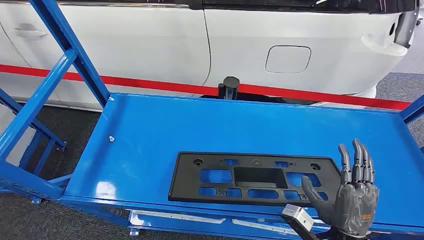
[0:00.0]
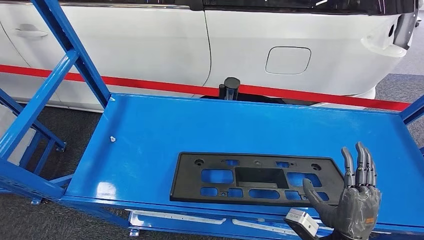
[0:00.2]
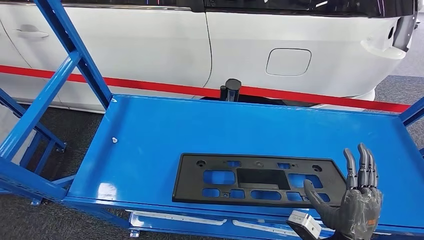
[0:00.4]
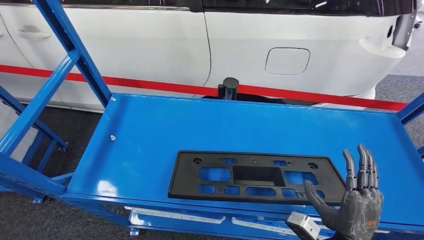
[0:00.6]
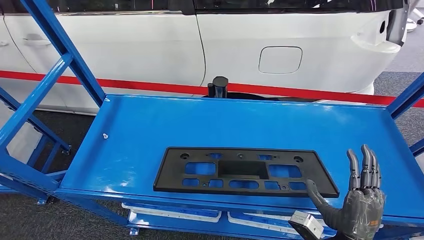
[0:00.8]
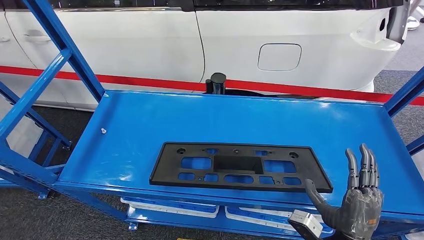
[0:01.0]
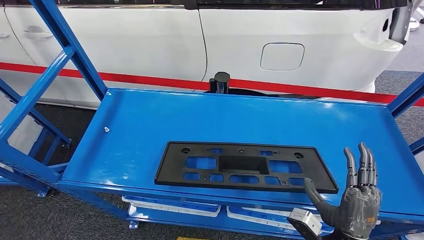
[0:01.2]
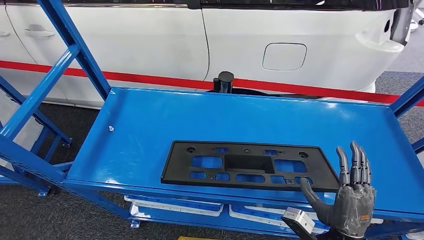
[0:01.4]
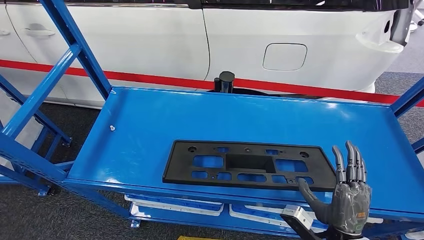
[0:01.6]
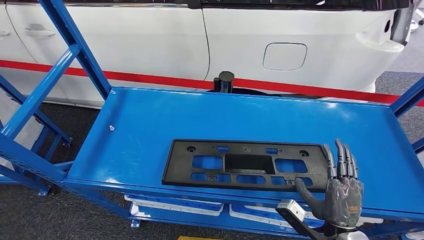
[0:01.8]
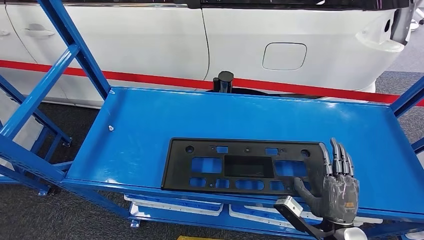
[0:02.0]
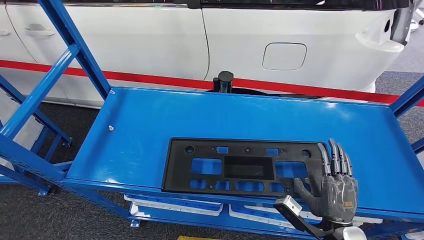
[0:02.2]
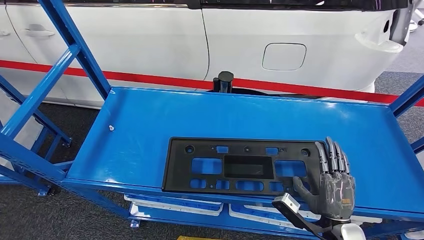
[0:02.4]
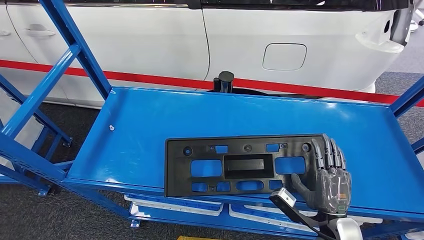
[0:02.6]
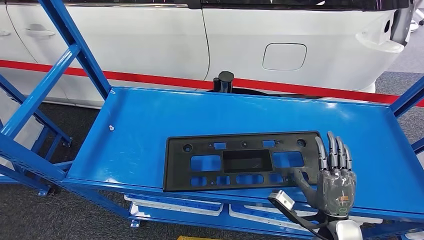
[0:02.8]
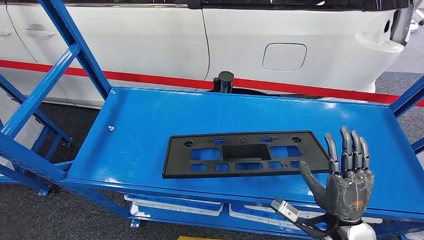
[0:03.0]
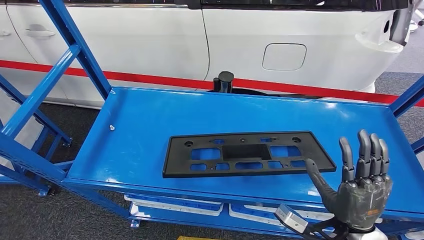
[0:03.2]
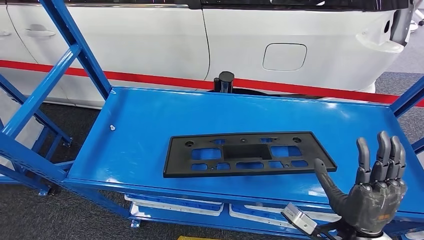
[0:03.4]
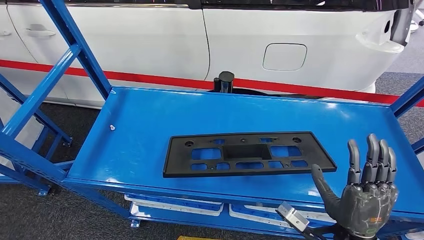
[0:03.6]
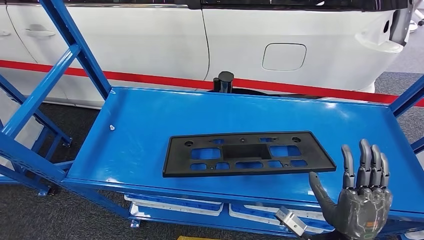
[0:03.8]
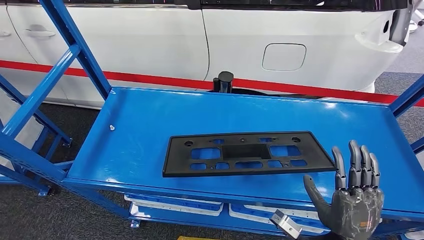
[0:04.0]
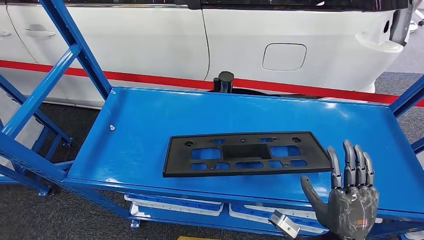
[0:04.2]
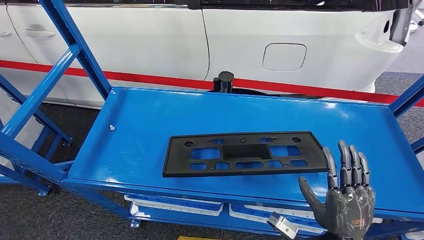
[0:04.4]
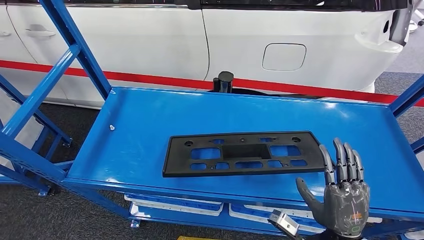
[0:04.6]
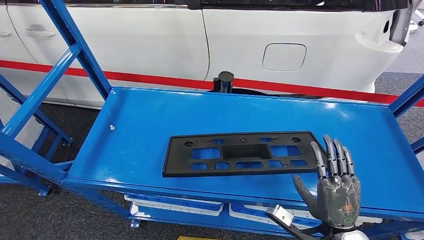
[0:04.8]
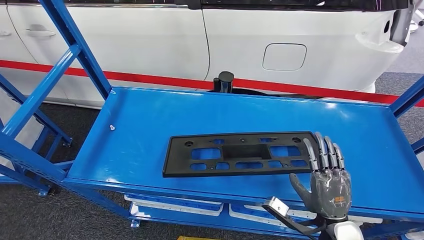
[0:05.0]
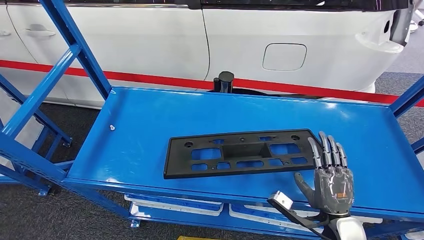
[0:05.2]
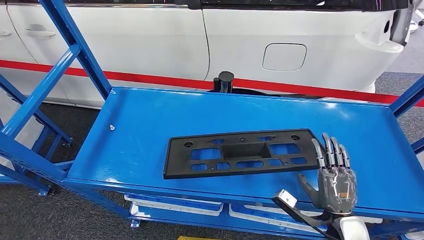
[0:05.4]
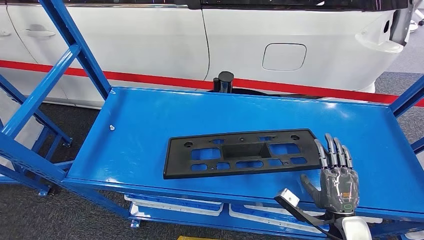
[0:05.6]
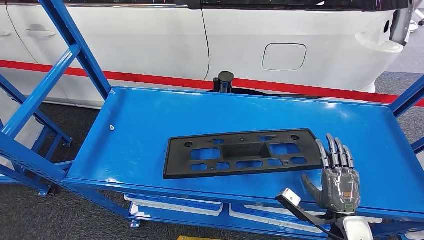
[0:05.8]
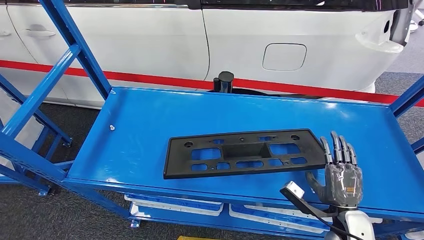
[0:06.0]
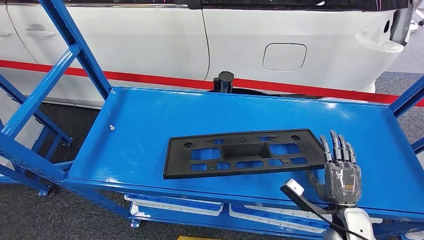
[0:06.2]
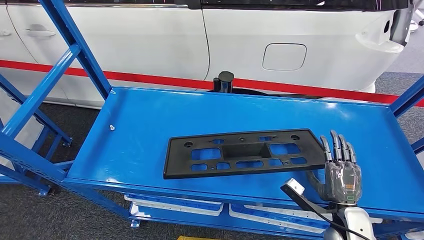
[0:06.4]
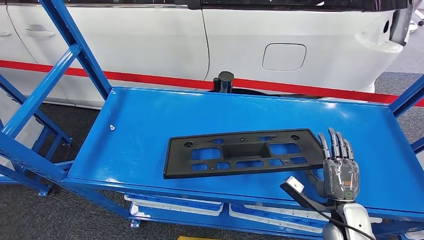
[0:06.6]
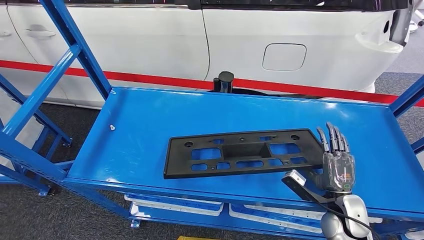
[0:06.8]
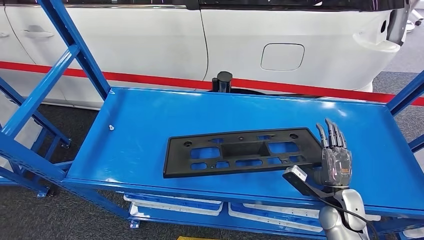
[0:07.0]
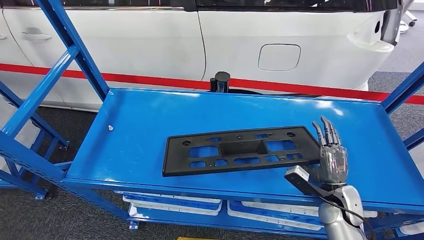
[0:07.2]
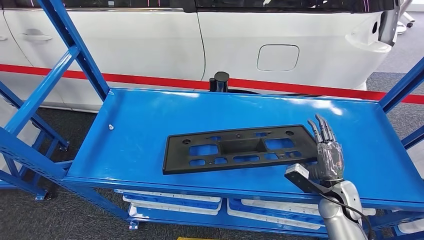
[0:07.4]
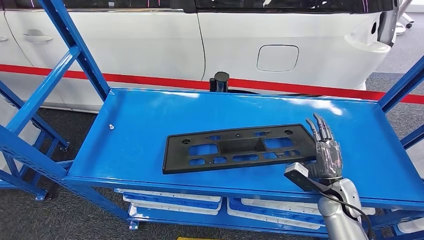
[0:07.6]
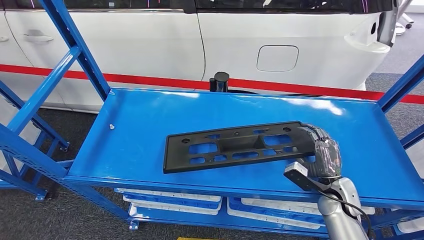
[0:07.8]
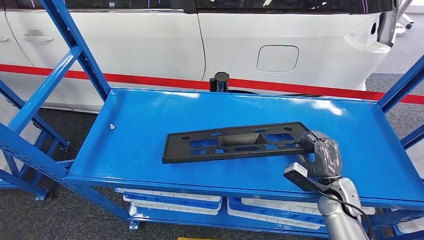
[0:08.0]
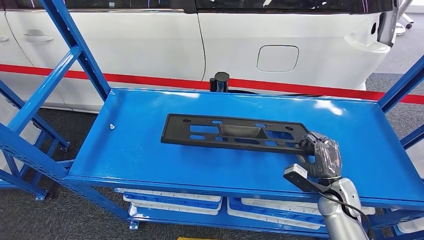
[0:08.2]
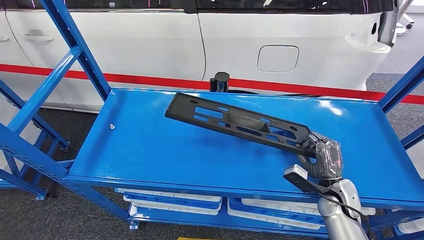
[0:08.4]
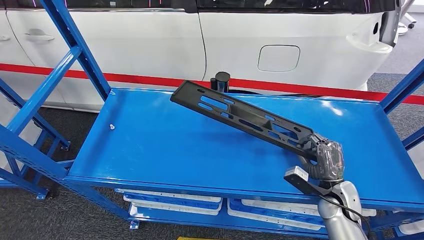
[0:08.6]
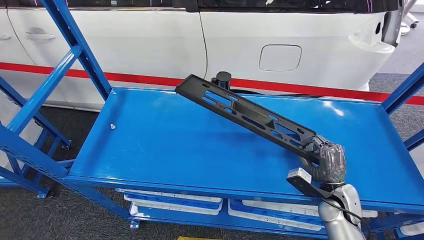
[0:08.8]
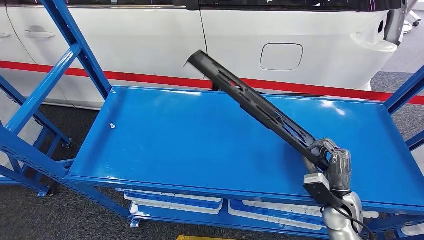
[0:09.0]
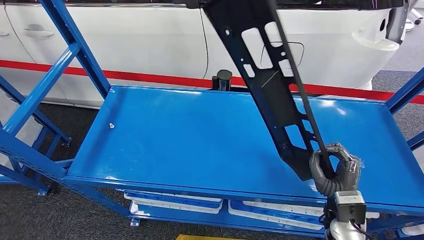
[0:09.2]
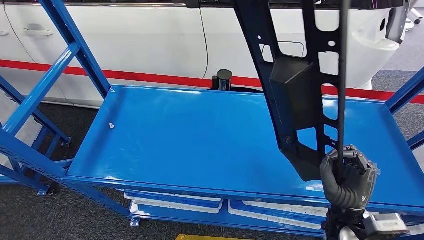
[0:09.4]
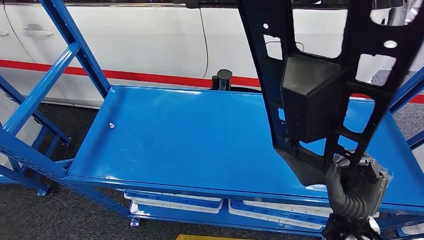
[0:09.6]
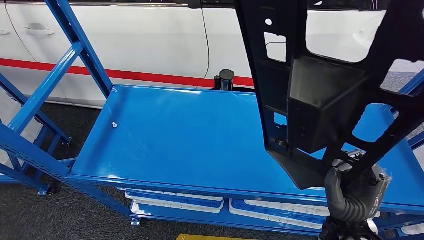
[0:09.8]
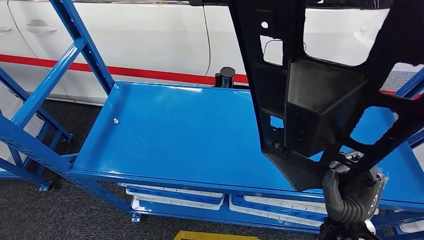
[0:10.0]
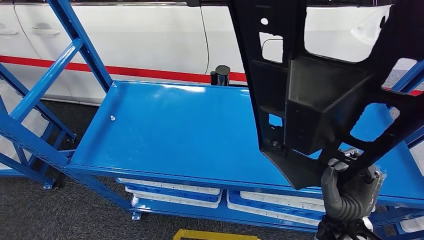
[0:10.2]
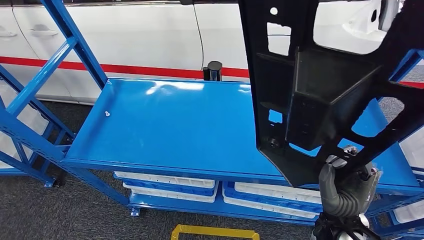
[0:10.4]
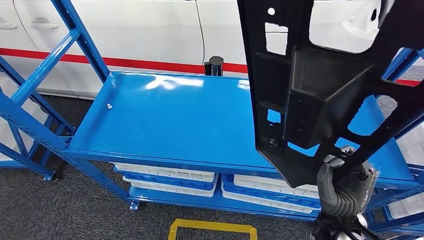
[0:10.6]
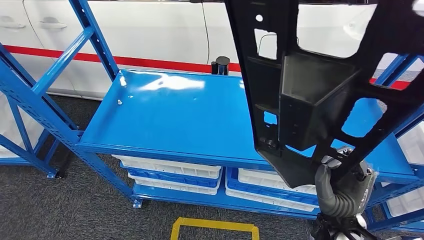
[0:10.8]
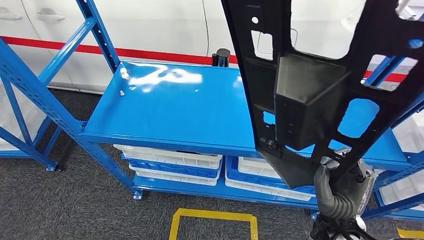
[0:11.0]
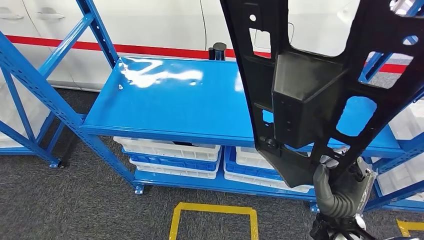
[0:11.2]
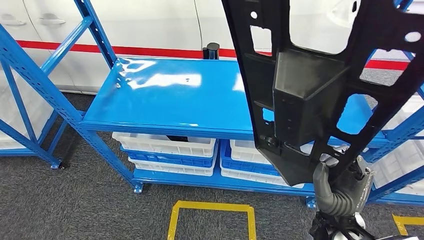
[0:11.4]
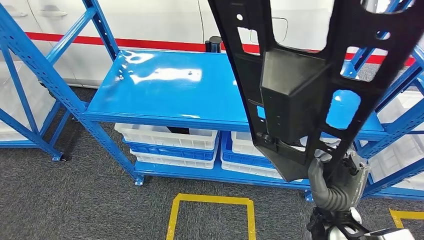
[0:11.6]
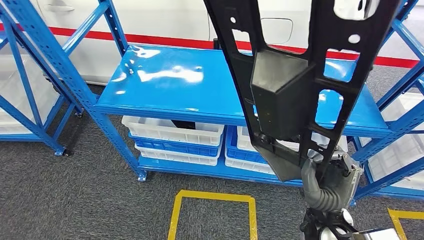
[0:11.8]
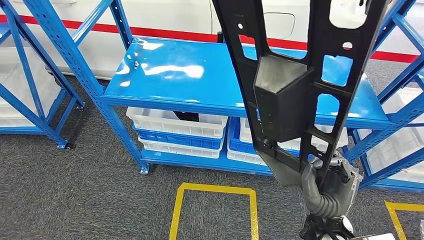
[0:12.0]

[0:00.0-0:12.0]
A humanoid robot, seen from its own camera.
Step, 0:00.0 to 0:11.6: Pick up the large material from the shelf.
0:01.6 to 0:03.0: The hands make only small movements.
0:03.0 to 0:04.4: The hands make only small movements.
0:04.4 to 0:06.0: The right hand shifts about 5 cm to the right and downward.

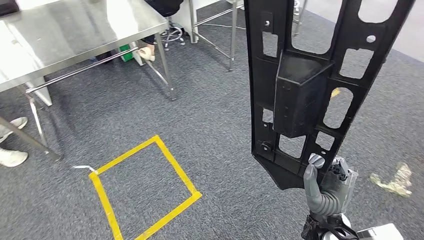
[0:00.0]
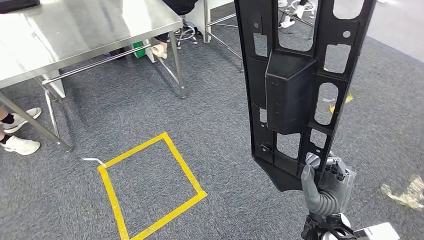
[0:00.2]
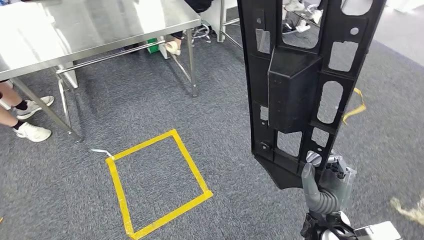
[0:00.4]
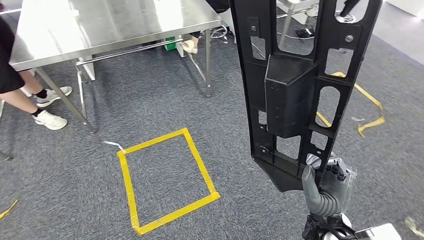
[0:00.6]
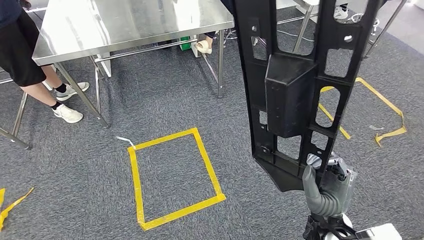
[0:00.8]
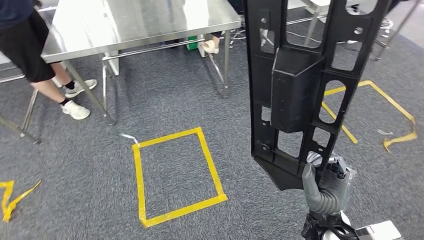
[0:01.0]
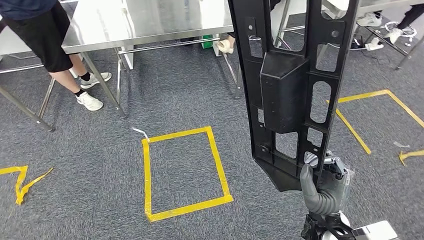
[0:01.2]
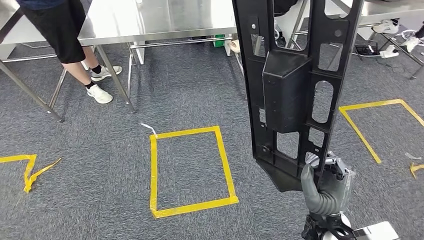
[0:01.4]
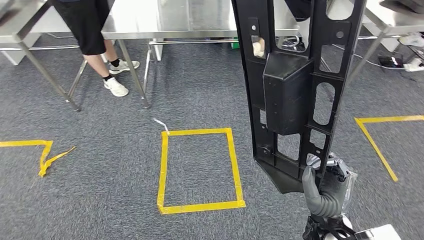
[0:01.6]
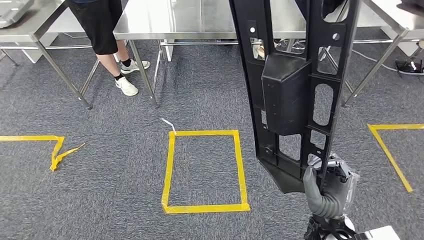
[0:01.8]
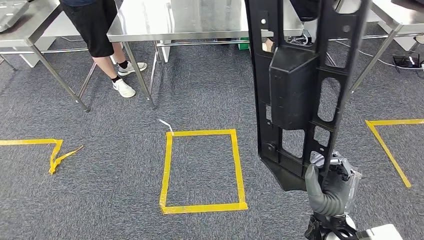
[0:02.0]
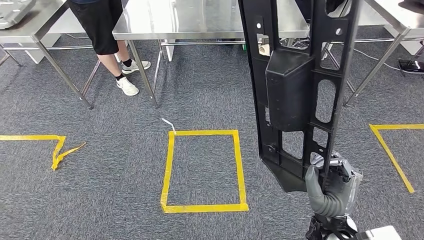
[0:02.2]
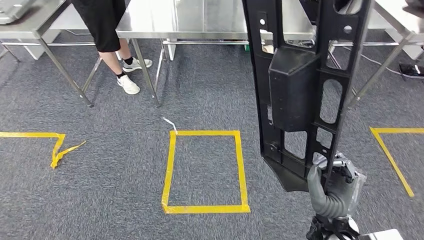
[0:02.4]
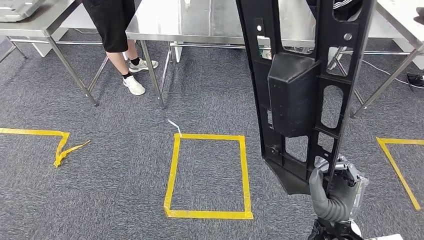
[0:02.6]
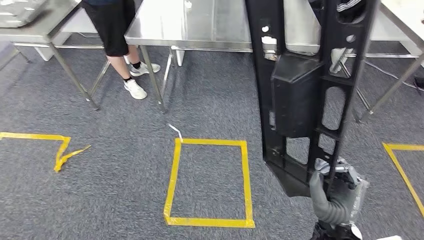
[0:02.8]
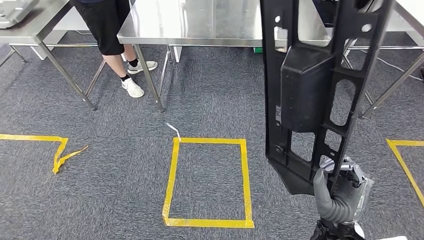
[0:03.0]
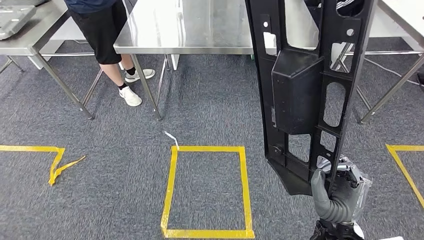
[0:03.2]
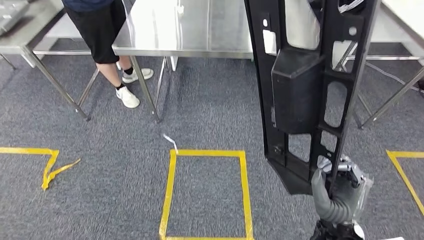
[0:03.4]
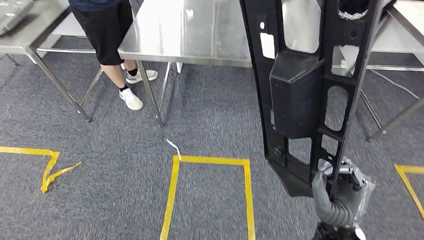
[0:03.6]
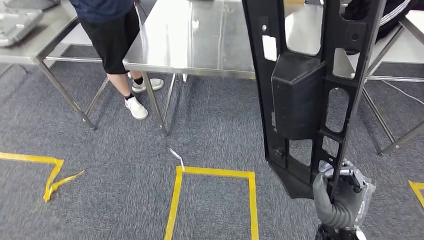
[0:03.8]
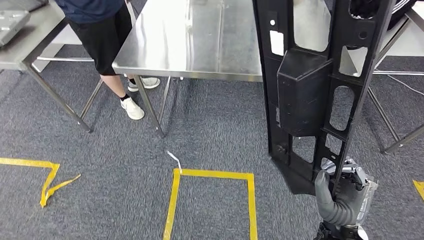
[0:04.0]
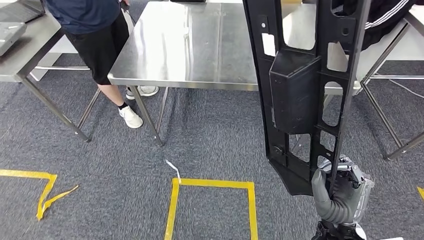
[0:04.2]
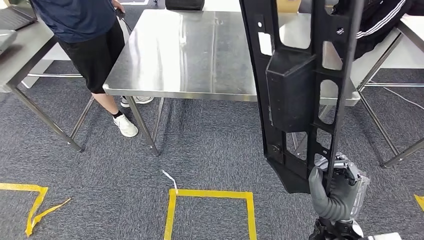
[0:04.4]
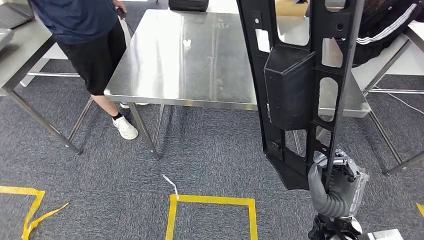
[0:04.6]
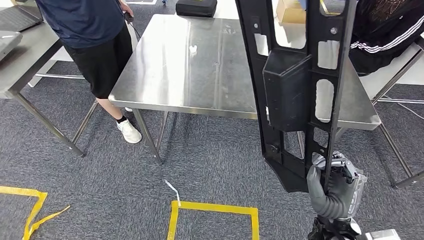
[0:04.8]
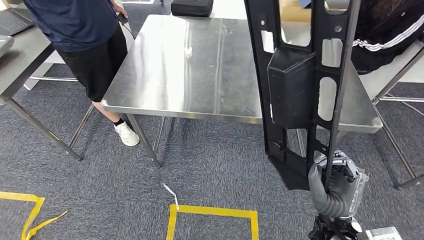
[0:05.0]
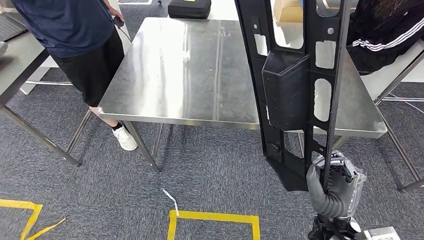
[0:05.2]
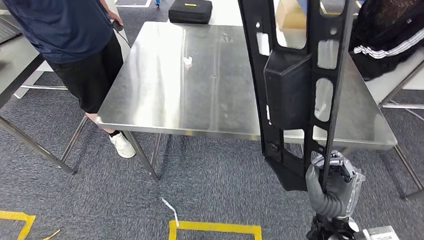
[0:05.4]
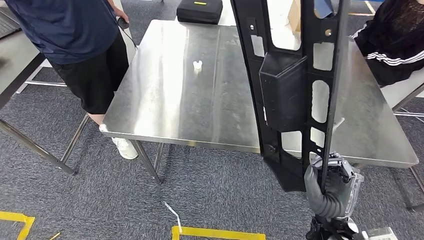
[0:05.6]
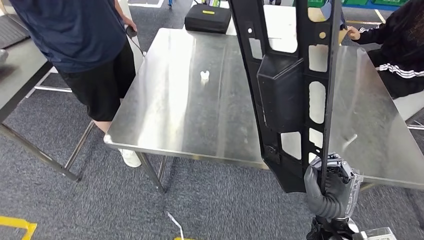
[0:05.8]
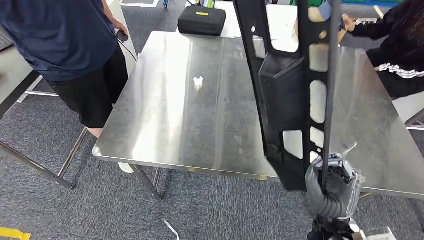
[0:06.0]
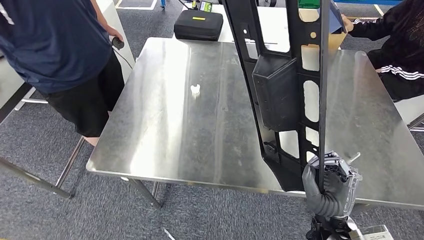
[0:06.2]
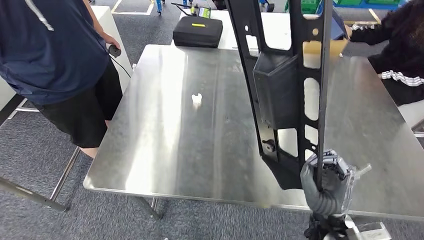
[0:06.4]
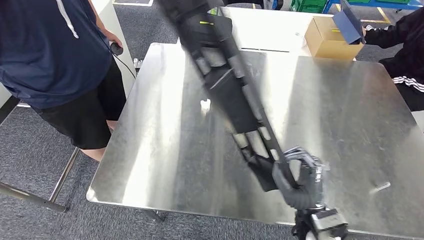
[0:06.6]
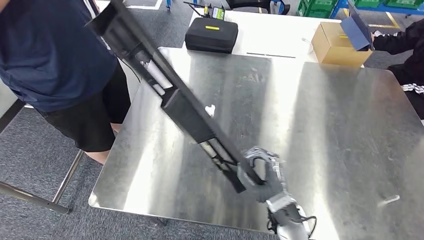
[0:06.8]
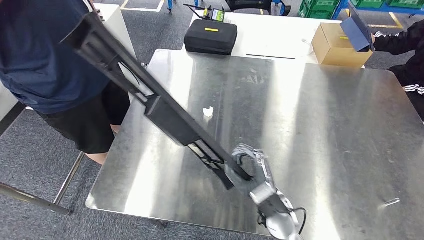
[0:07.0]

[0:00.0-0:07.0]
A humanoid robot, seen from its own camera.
Step, 0:00.0 to 0:05.0: Move the large material to the workbench.
